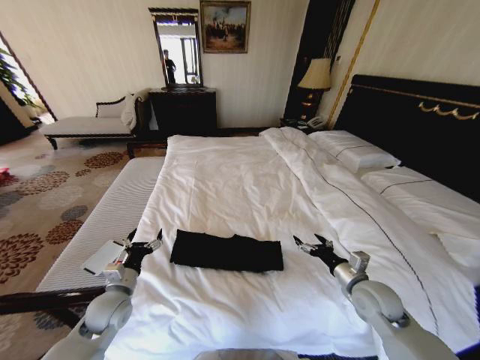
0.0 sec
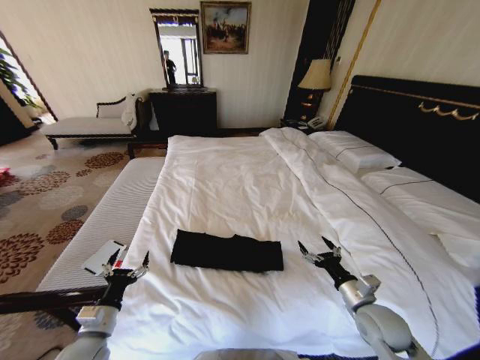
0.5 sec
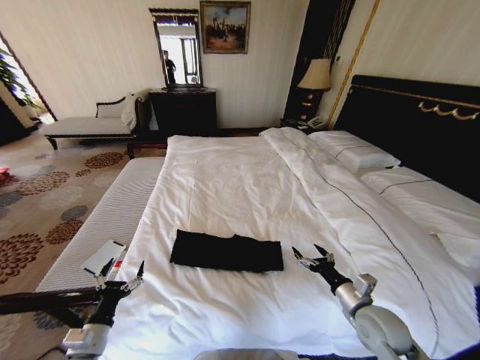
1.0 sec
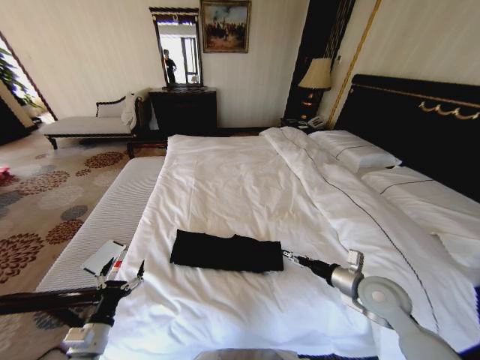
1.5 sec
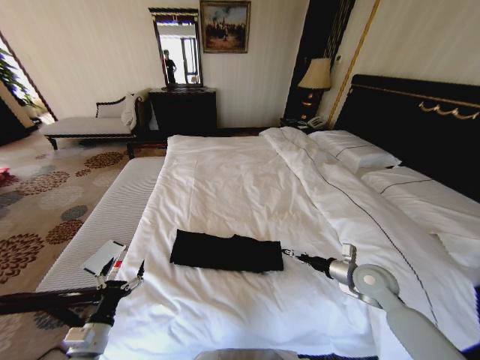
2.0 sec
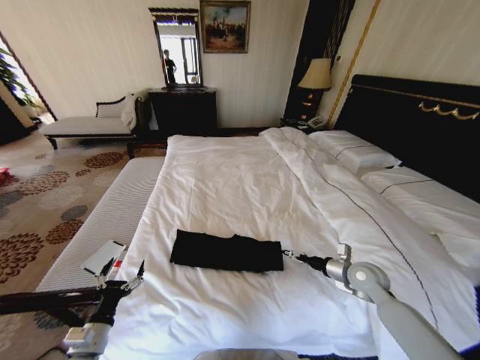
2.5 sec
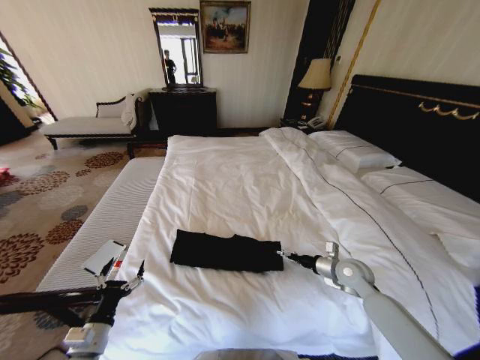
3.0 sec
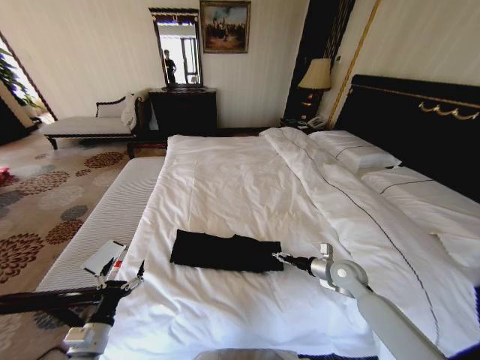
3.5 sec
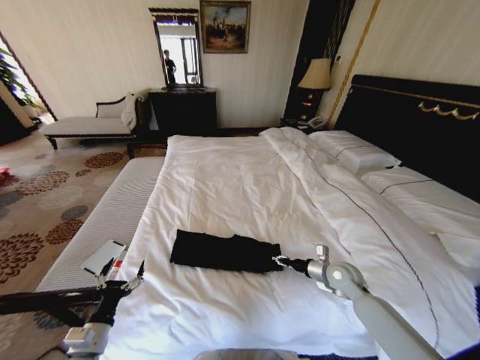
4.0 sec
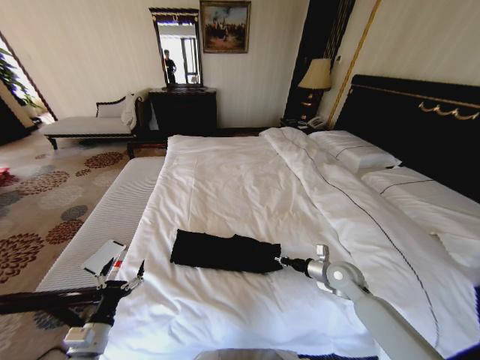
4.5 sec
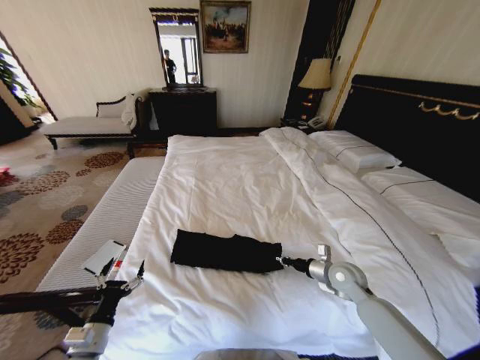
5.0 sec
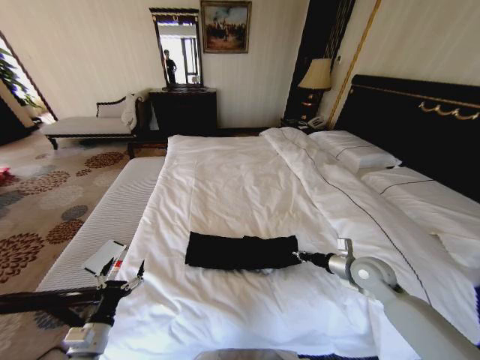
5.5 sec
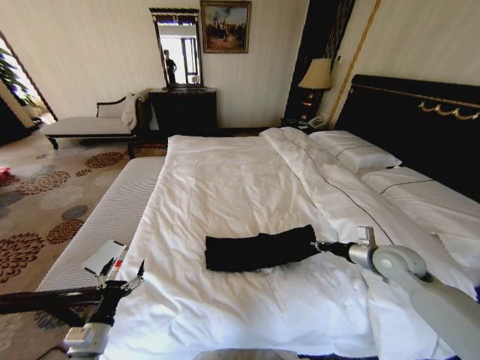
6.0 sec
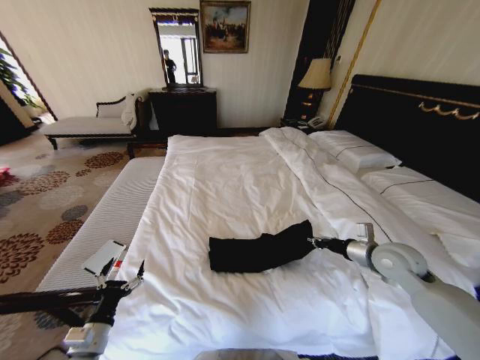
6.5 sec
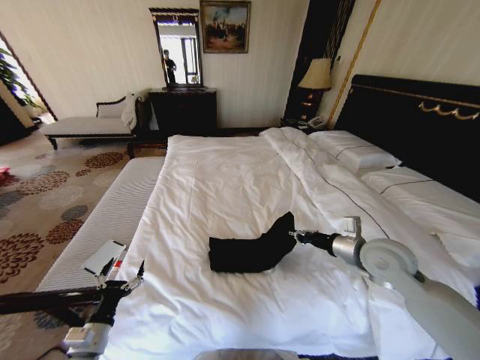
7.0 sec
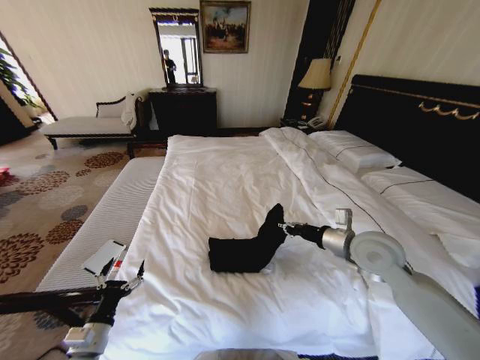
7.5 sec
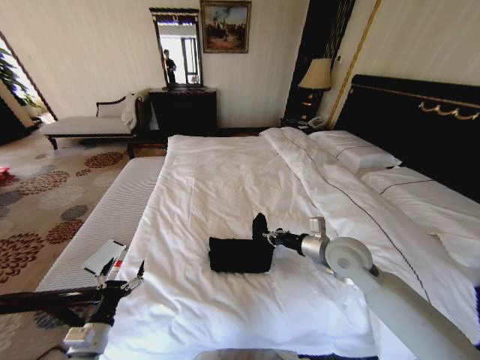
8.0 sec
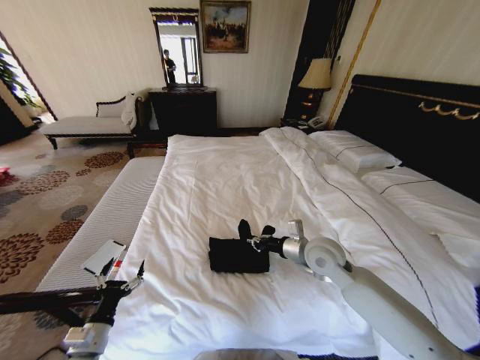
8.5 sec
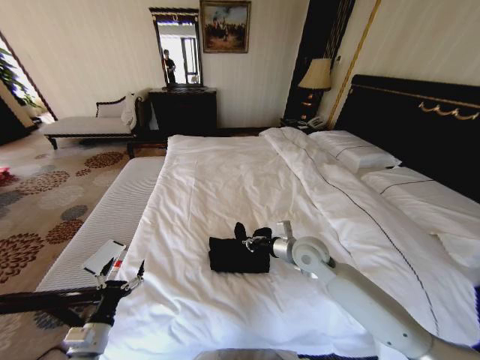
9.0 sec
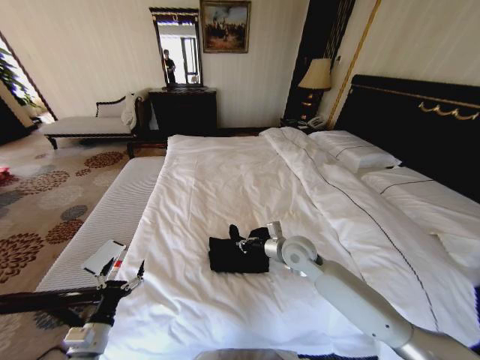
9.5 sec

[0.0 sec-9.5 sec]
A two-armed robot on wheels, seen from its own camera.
Task of the whole recording: Fold the clothes on the bed.
0.0 sec to 2.0 sec: The left gripper travels backward by some 15 cm.
2.0 sec to 4.0 sec: The right gripper moves downward, about 5 cm, and closes up.
4.0 sec to 5.5 sec: The right gripper heads upward, covering about 5 cm, and closes.
5.5 sec to 7.5 sec: The right gripper travels upward and to the left by approximately 15 cm.
7.5 sec to 9.5 sec: The right gripper heads to the left and downward, covering about 15 cm.

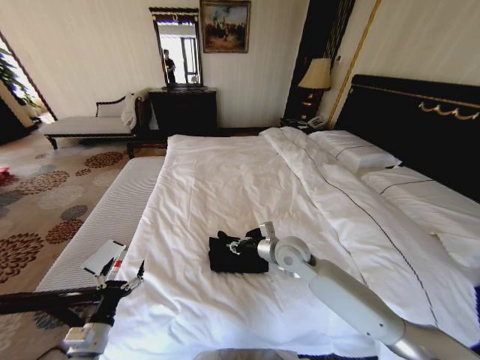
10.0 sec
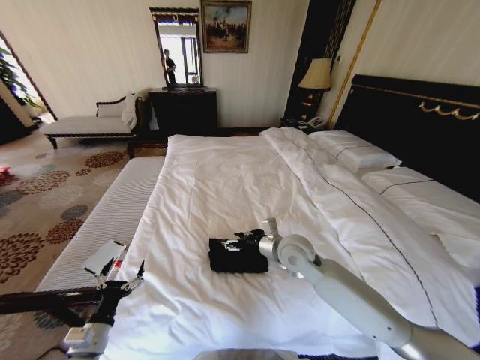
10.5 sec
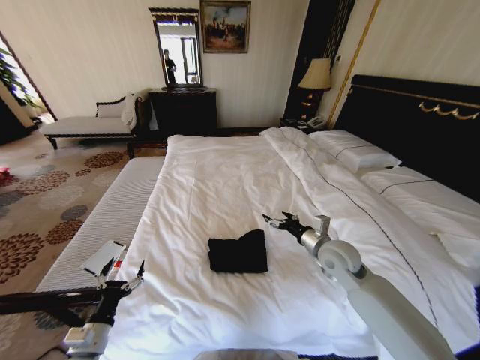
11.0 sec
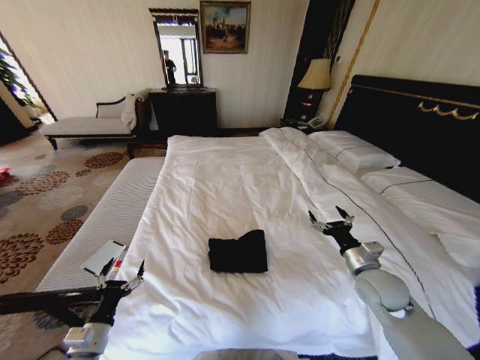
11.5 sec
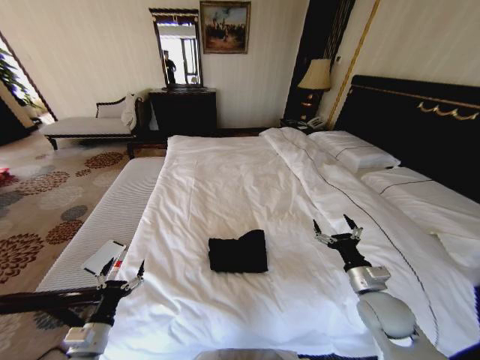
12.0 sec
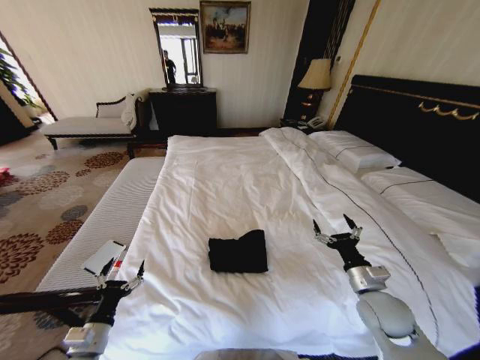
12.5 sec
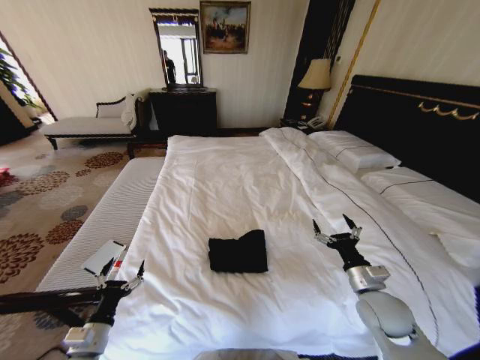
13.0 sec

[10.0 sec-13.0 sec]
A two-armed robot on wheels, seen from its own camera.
Task of the whole recording: Fold the clothes on the bed.
10.0 sec to 11.5 sec: The right gripper shifts about 20 cm to the right and backward, and opens up.
11.5 sec to 13.0 sec: The right gripper travels backward by some 5 cm.
